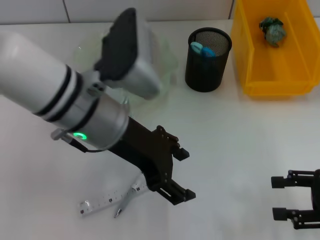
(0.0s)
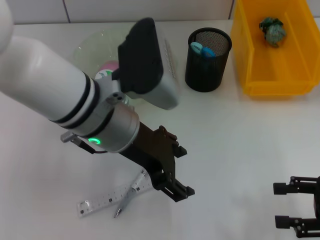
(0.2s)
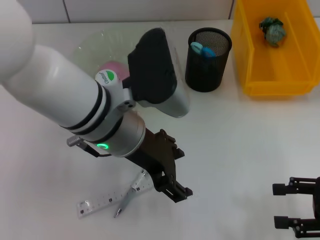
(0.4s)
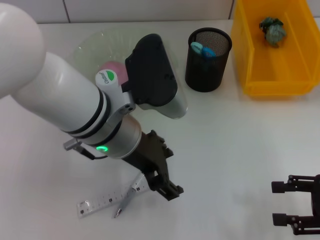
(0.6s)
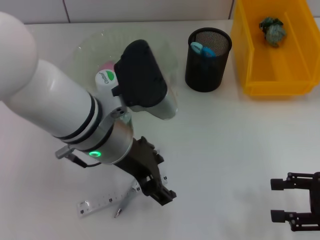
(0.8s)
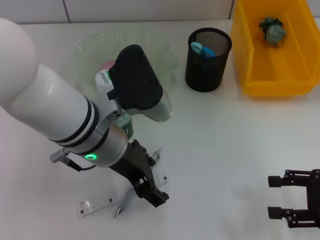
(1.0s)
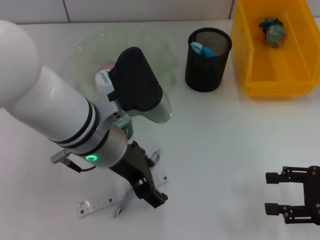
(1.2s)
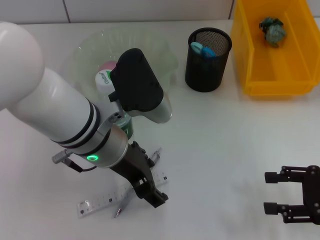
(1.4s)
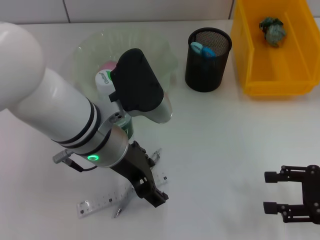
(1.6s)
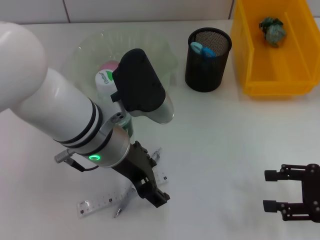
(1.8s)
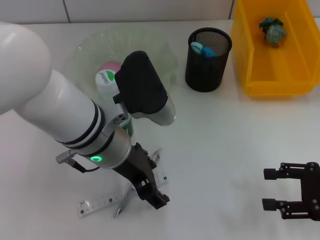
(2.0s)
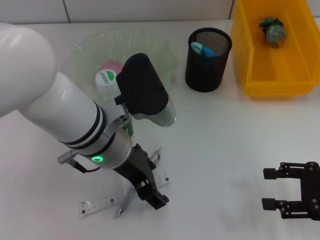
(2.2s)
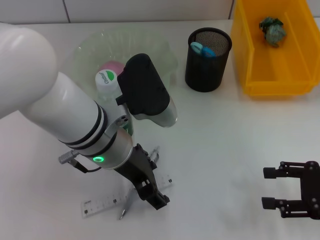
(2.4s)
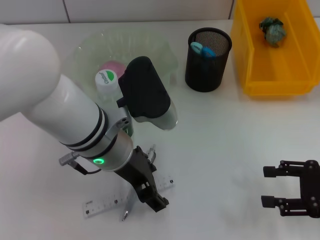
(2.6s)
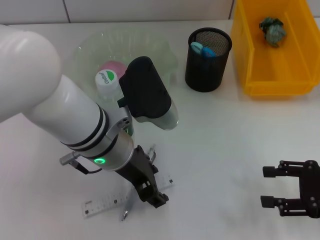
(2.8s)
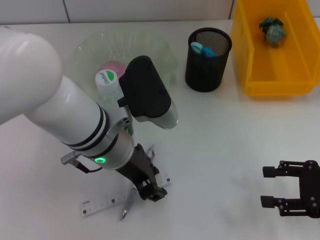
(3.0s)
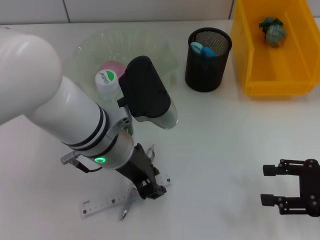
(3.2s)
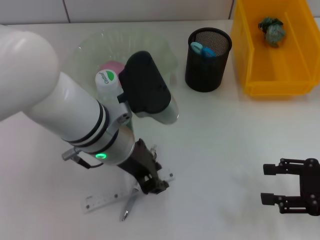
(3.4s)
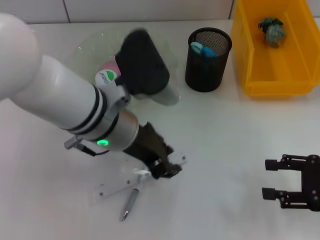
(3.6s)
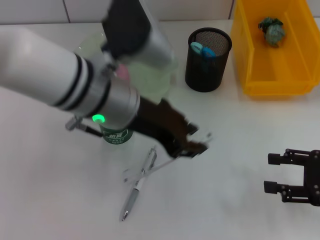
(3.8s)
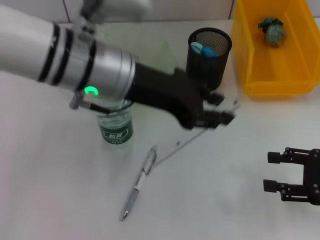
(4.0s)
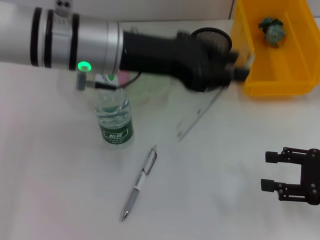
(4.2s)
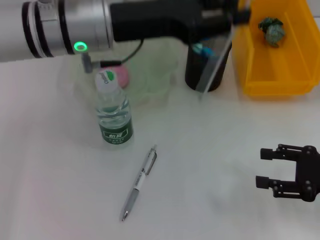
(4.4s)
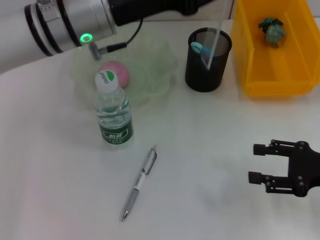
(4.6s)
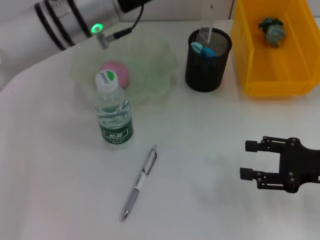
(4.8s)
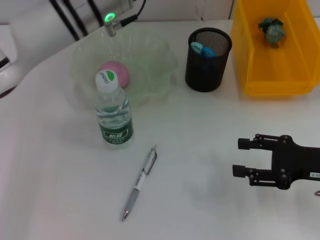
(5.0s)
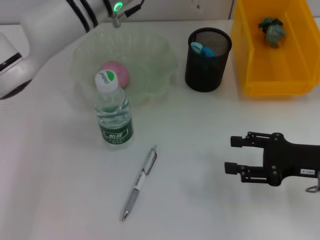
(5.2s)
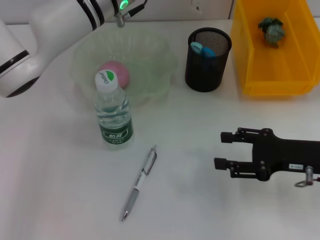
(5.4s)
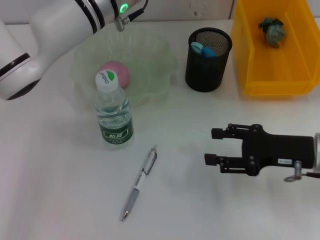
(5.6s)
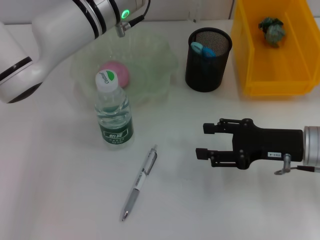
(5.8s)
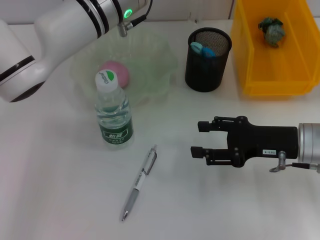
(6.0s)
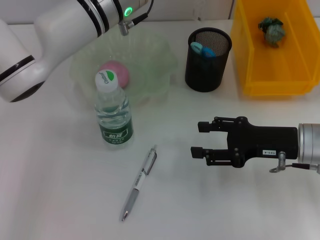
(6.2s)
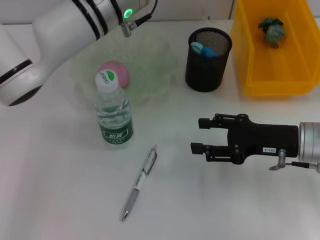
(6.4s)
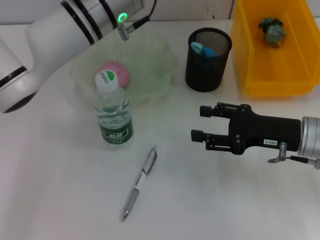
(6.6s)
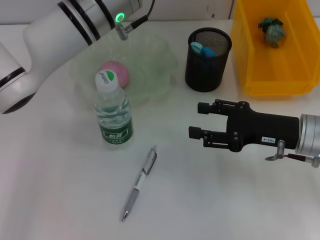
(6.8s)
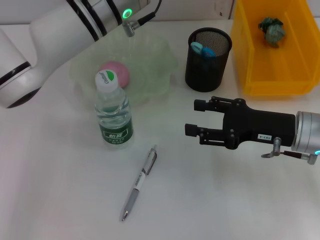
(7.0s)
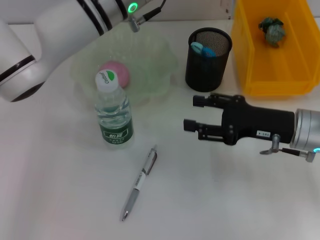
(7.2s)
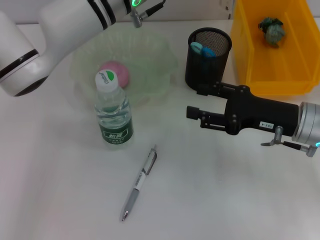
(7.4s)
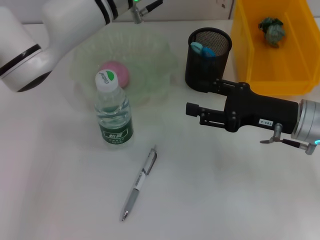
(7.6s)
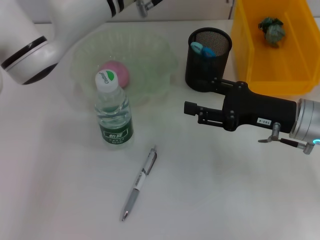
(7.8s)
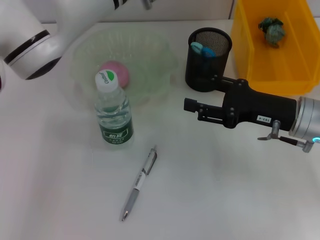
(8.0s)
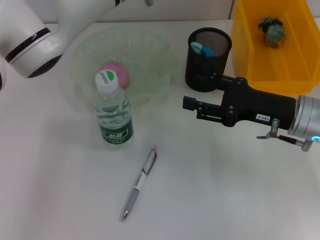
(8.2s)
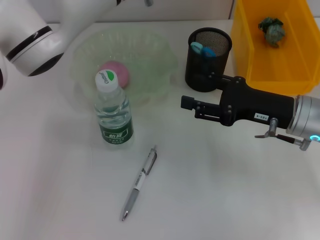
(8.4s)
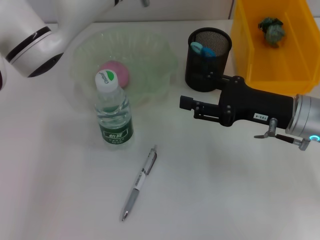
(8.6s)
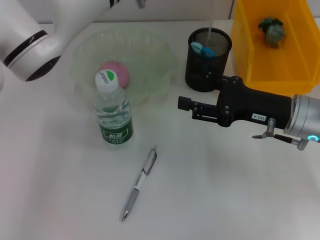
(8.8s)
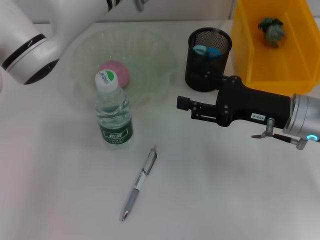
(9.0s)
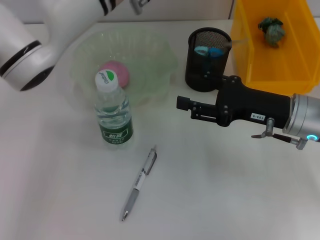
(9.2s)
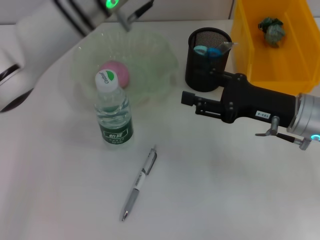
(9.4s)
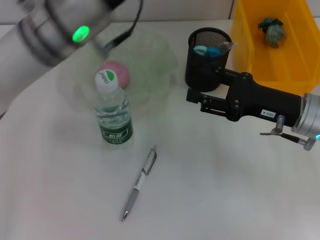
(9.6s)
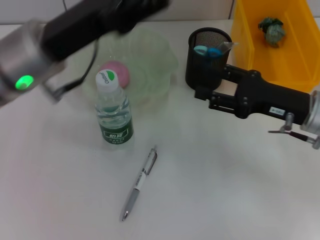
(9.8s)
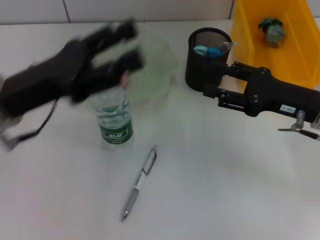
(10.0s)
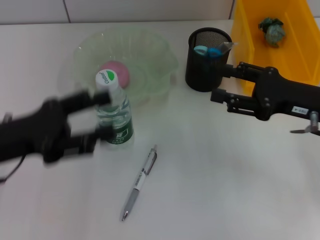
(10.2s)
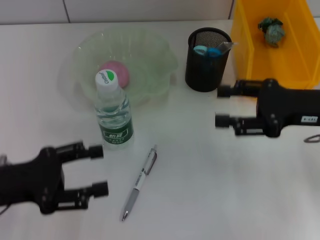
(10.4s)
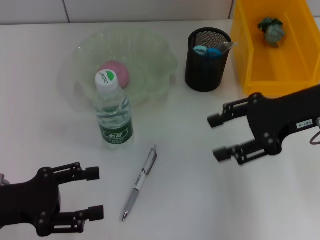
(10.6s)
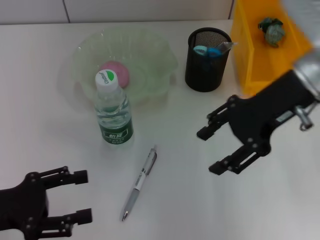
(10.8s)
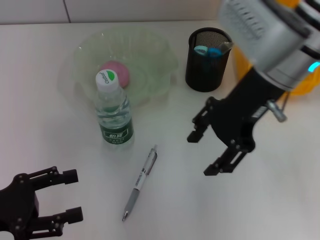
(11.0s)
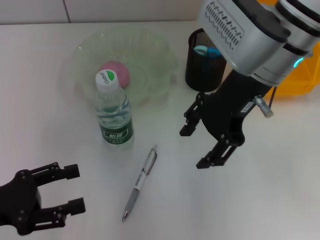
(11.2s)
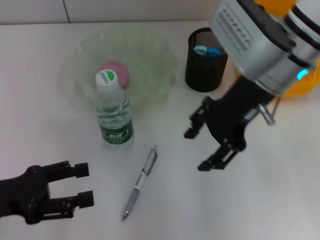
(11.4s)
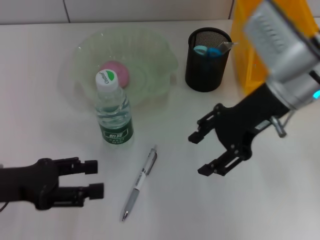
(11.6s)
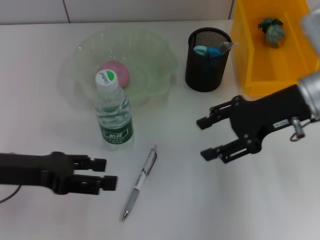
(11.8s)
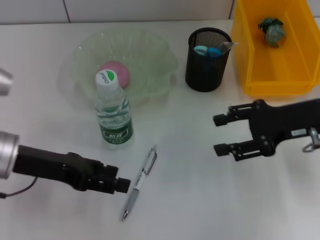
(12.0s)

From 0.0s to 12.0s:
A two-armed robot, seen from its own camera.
Step, from 0.0s to 3.0s: Grab the ruler with the right hand.
Step, from 3.2s to 9.2s: Place the ruler into the pen holder with the right hand.
From 1.6s to 3.0s: The two grippers keep their place.
From 3.0s to 4.4s: The left gripper travels upward and forward by approximately 10 cm.
From 4.4s to 6.0s: The right gripper is displaced to the left and forward by some 10 cm. Meanwhile the left gripper is displaced forward by approximately 5 cm.
From 6.0s to 9.0s: The grippers make only small movements.
From 9.0s to 10.4s: The left gripper travels to the left, backward and downward by about 35 cm. The right gripper moves some 5 cm.
From 10.4s to 12.0s: The left gripper heads forward, covering roughly 5 cm, while the right gripper reaches roughly 15 cm to the left, then returns.

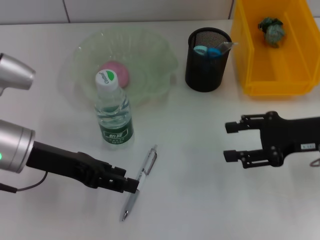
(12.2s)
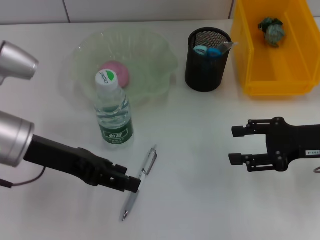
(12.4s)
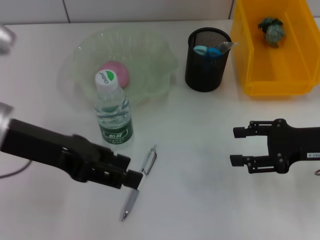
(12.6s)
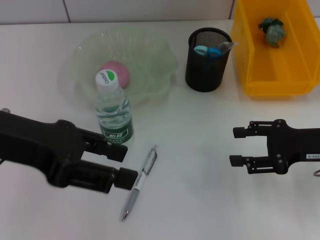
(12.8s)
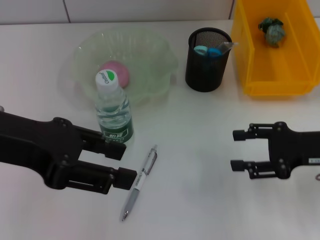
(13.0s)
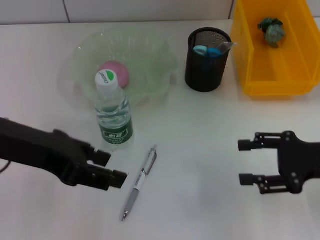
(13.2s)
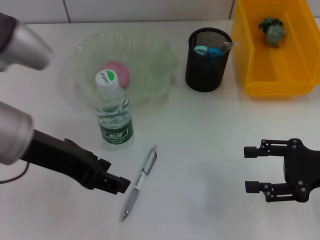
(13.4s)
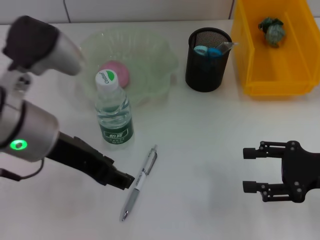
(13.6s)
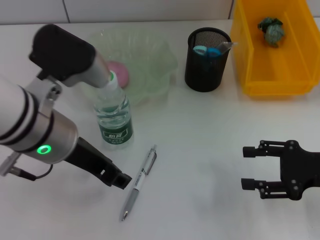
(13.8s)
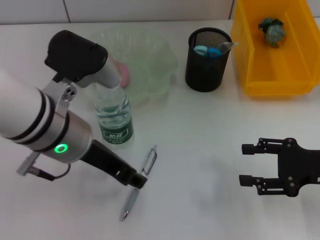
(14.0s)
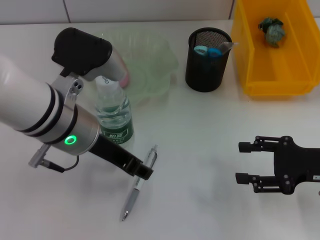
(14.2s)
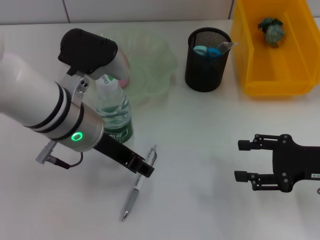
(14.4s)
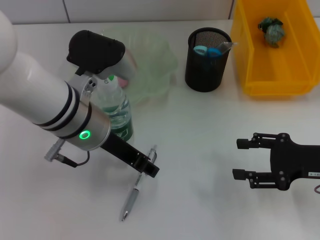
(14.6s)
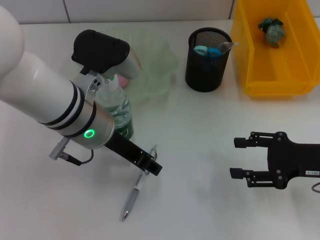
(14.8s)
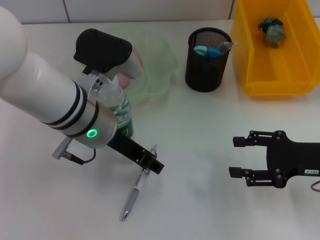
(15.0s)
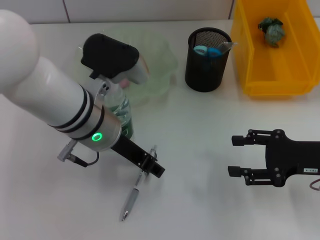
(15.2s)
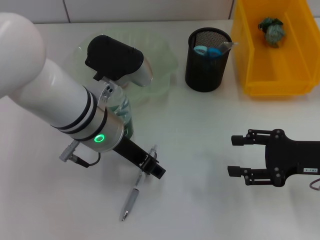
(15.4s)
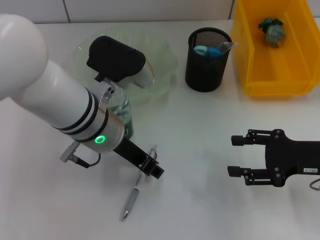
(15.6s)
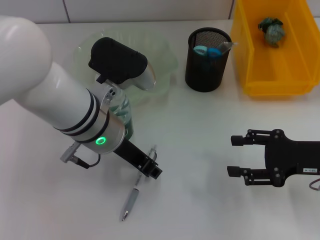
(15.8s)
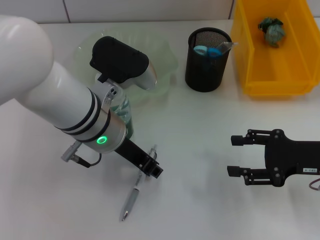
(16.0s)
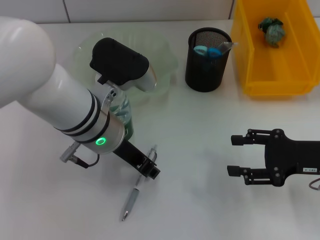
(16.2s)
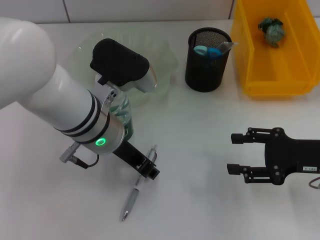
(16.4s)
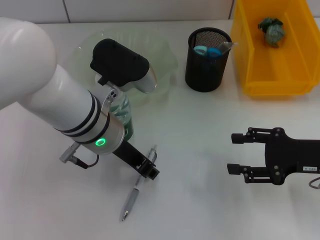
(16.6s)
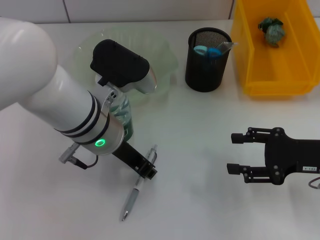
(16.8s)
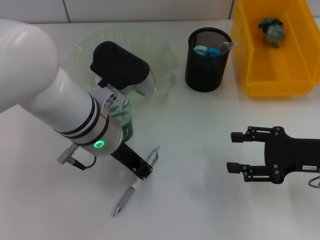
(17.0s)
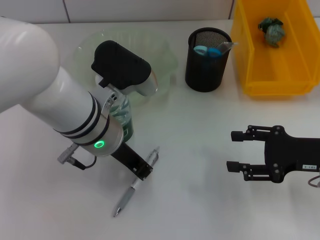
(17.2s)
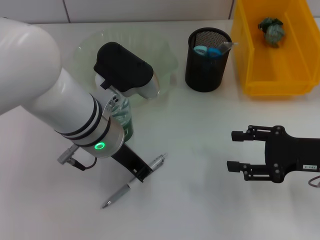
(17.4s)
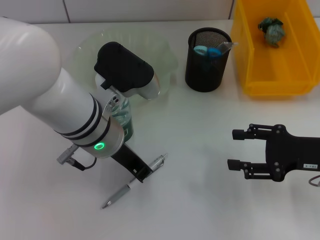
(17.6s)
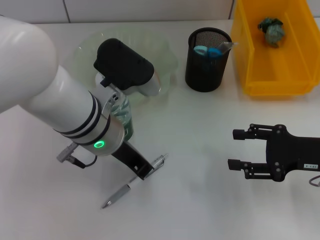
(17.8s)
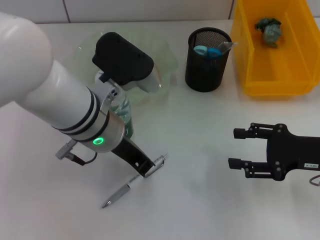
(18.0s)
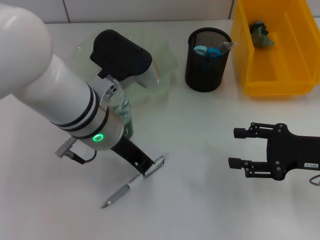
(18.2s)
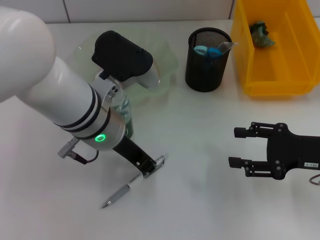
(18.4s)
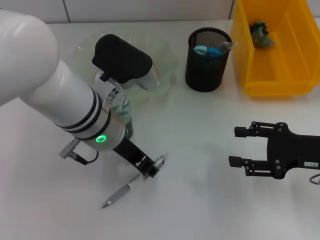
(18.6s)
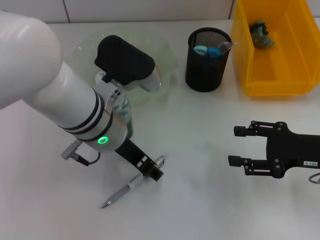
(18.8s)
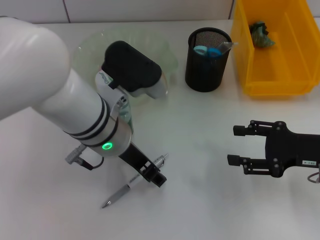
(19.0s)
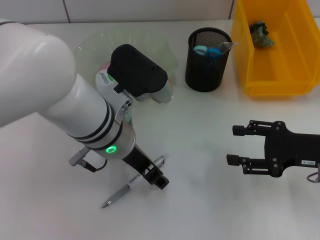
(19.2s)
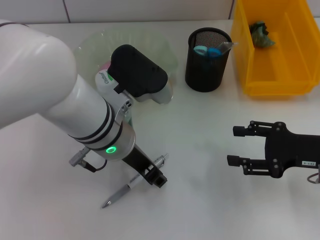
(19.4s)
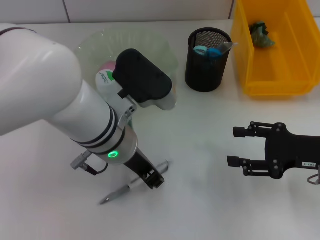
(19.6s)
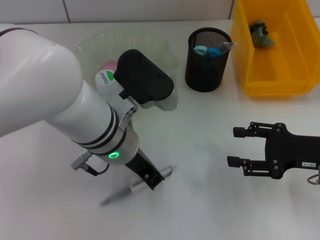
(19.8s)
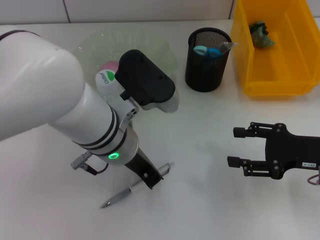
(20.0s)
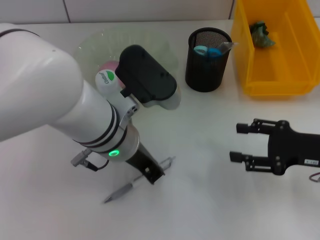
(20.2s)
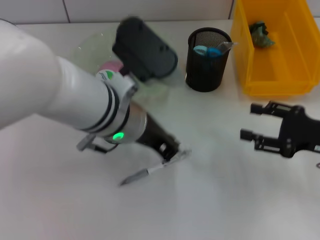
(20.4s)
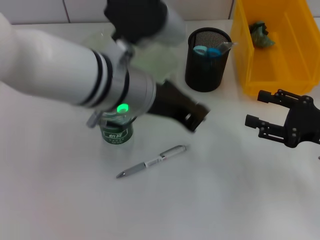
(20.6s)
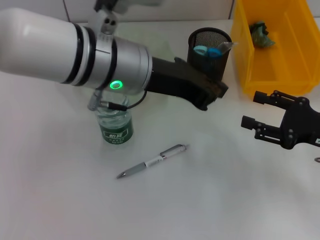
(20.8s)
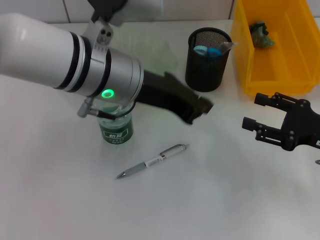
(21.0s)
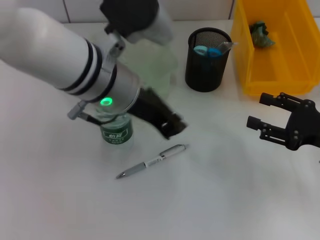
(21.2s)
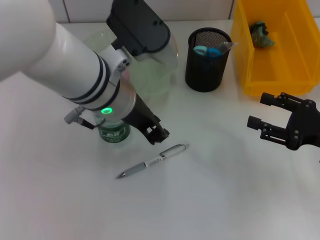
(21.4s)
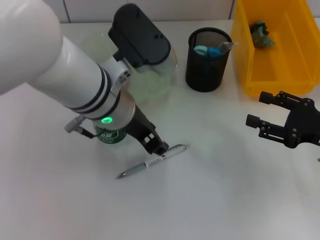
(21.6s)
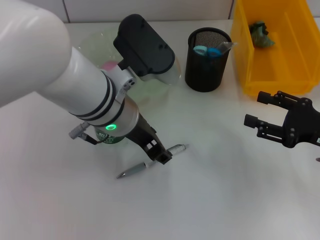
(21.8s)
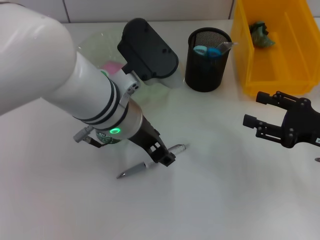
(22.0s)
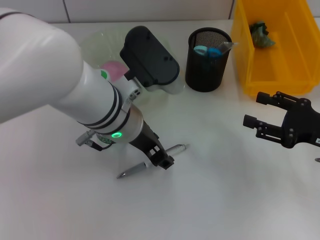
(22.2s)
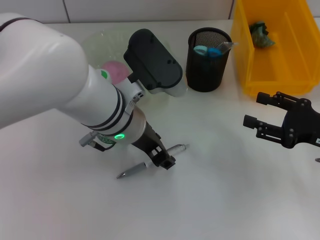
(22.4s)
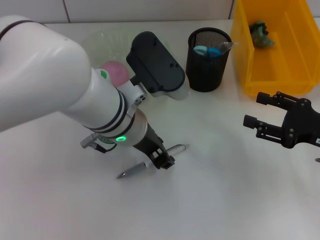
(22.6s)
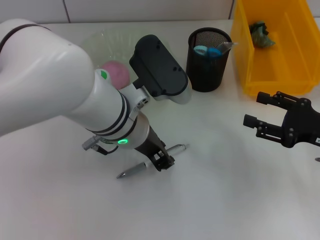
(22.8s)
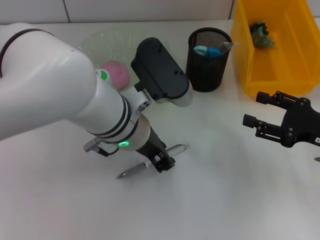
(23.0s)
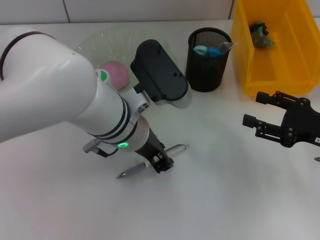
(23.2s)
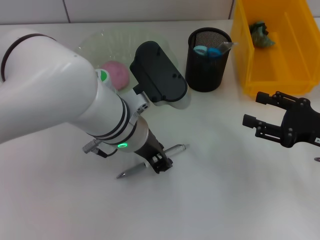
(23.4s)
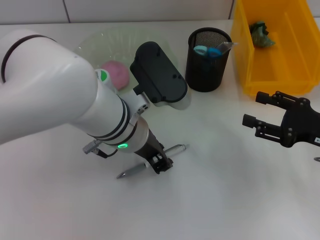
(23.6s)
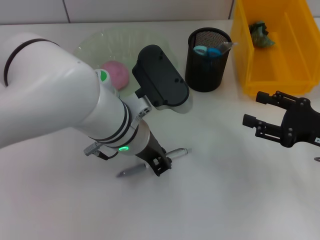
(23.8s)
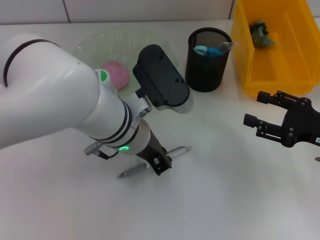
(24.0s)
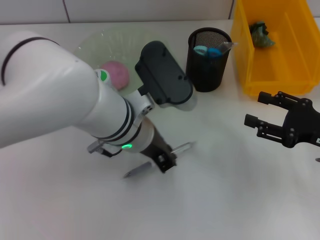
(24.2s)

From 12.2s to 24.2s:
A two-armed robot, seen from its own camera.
Step, from 12.2s to 24.0s: Grab the gray spring-action pen with the left hand.
From 12.2s to 13.8s: The right gripper moves backward, some 5 cm, while the left gripper goes about 10 cm to the right and upward.
From 13.8s to 15.2s: The left gripper ends up about 5 cm from where it was.
From 15.2s to 16.6s: The grippers move only a little.
From 16.6s to 18.2s: The left gripper closes.
From 18.2s to 19.8s: The left gripper opens, then closes once more.
From 19.8s to 21.2s: The left gripper is displaced upward by roughly 5 cm.
From 21.2s to 22.6s: The left gripper travels downward by about 5 cm, and opens.
From 22.6s to 24.2s: The left gripper closes.
